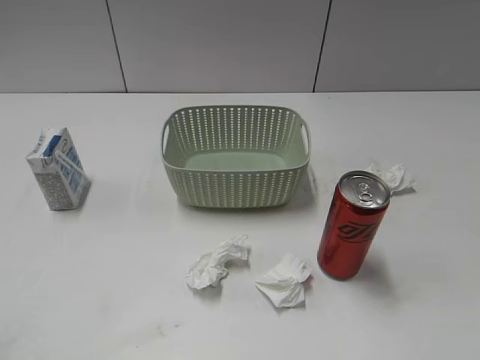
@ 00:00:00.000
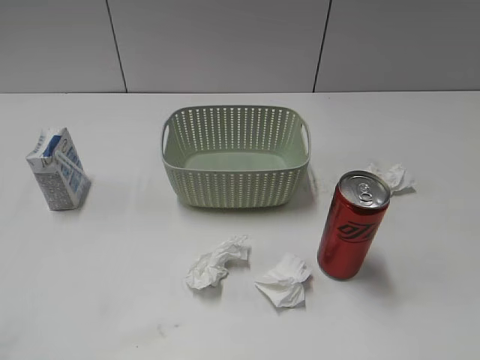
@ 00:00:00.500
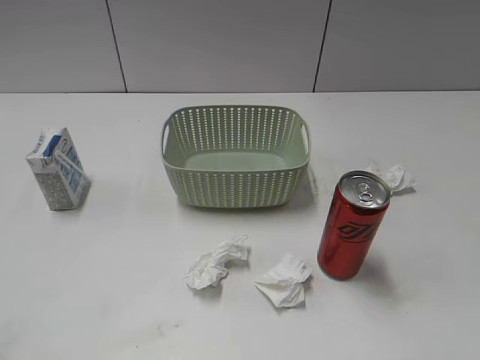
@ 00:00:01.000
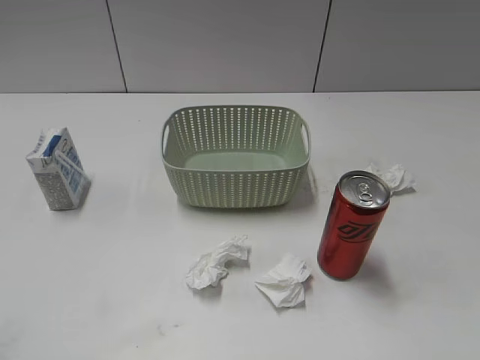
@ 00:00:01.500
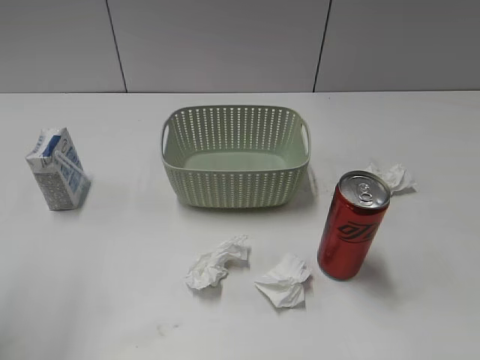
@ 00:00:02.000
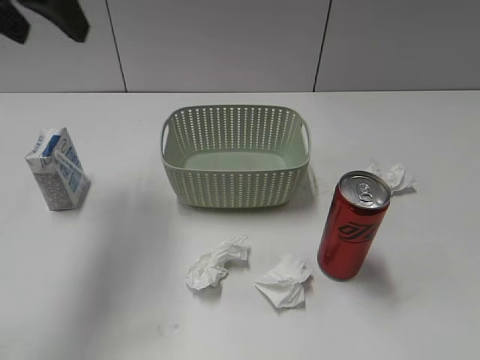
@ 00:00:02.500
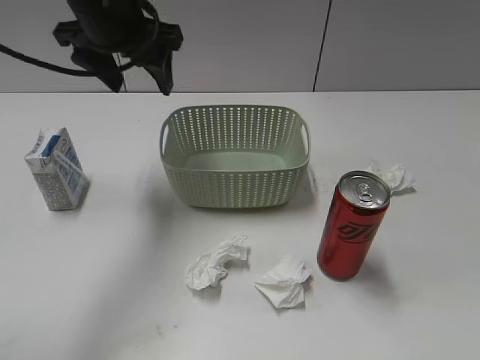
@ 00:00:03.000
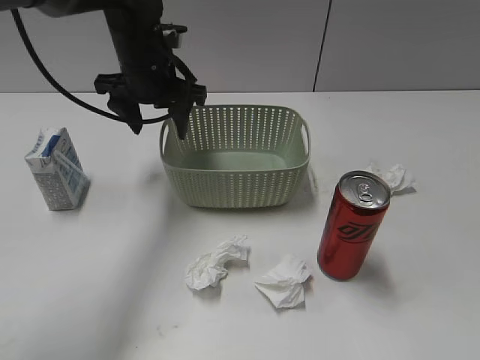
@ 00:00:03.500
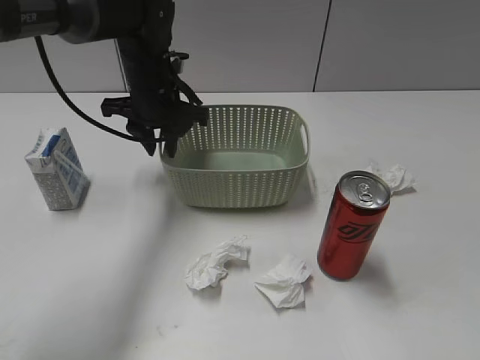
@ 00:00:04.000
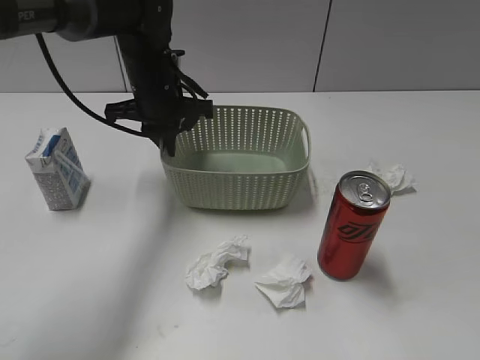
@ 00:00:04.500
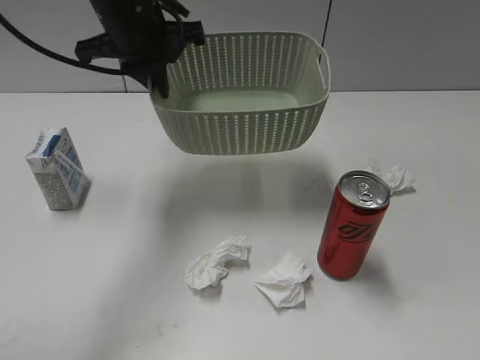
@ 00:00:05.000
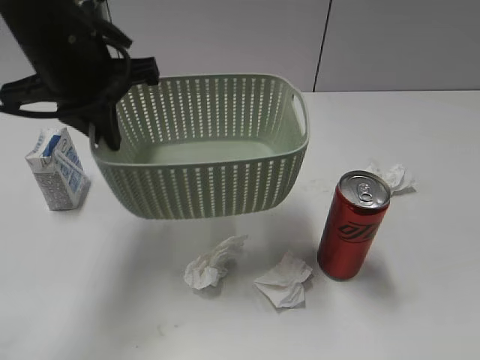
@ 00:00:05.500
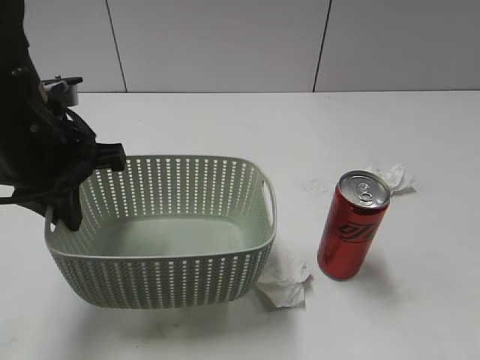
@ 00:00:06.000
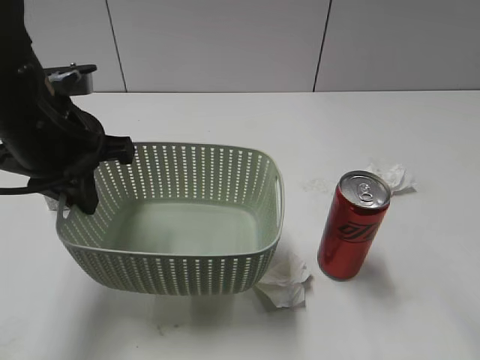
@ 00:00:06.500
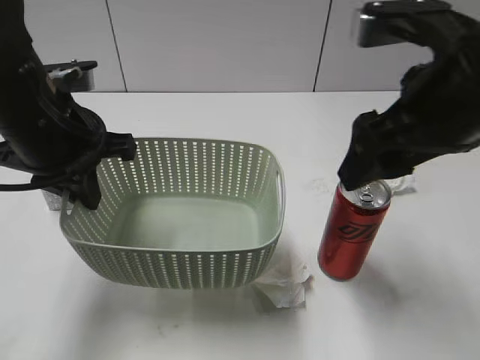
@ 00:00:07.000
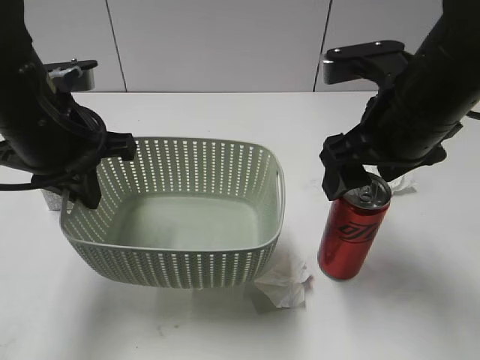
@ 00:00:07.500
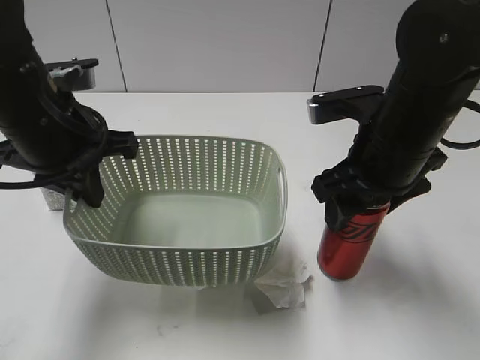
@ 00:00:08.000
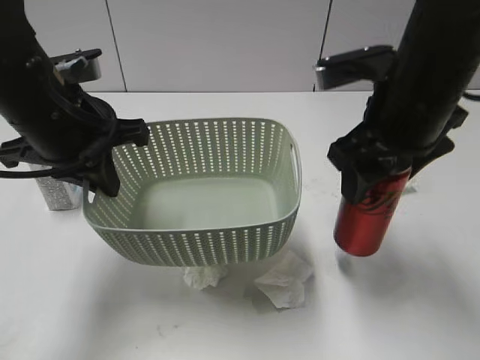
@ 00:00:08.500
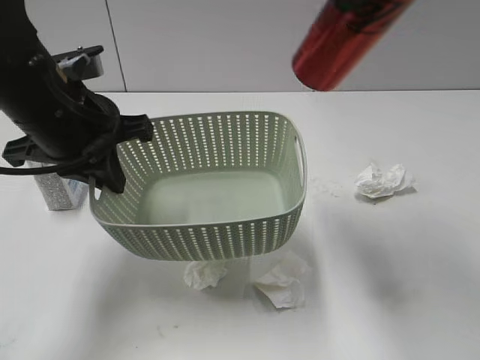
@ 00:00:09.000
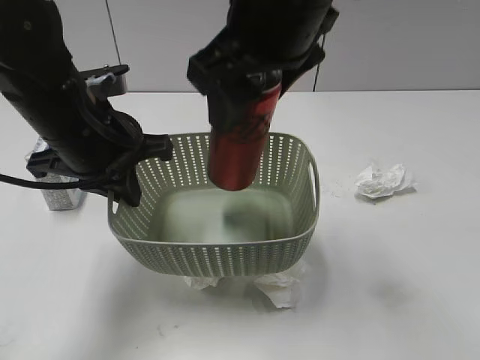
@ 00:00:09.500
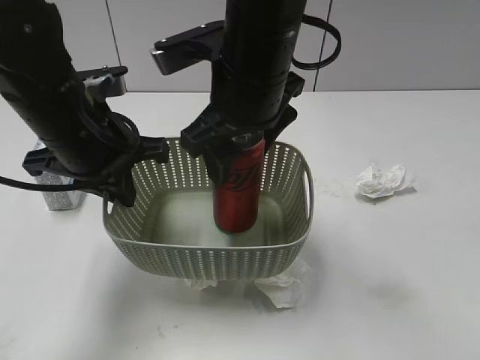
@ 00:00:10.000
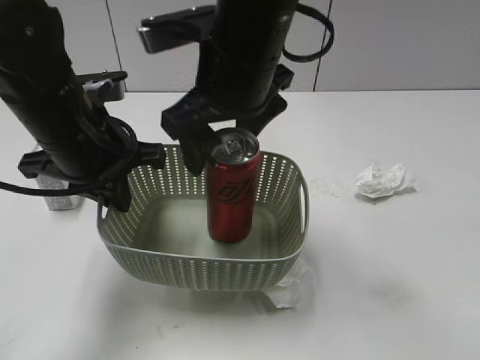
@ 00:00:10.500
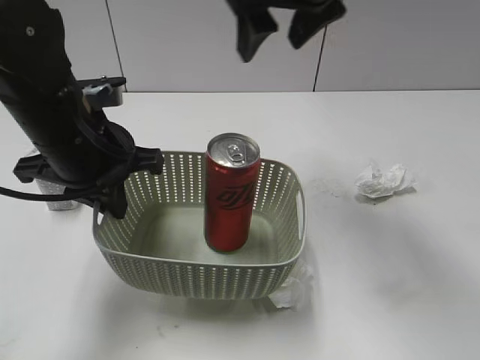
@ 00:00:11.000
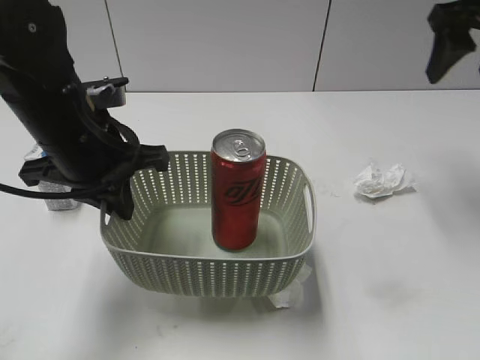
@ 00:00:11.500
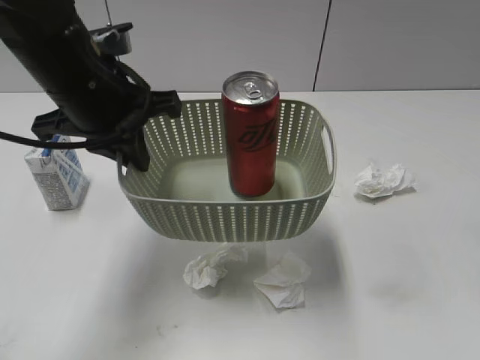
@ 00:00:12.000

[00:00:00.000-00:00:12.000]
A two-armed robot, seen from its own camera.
Step, 00:00:02.500 to 00:00:04.000: Grasp the basket with left gripper.
Step, 00:00:04.500 to 00:00:06.500: Lift the basket with left gripper.
Step, 00:00:07.000 to 00:00:08.000: Grasp the cola can with right gripper.
Step, 00:00:08.500 to 00:00:10.000: Place the cola can in the basket with right gripper.
00:00:02.000 to 00:00:04.000: The left gripper shifts some 40 cm forward, downward and to the right, and closes up.
00:00:04.000 to 00:00:06.000: The left gripper shifts roughly 20 cm backward and to the left.
00:00:06.000 to 00:00:08.000: The right gripper is displaced forward and to the left by some 30 cm, and opens and closes again.
00:00:08.000 to 00:00:10.000: The right gripper heads to the left, covering approximately 15 cm, and travels upward and back again, approximately 20 cm each way.
00:00:10.000 to 00:00:12.000: The right gripper shifts about 30 cm to the right, and opens.

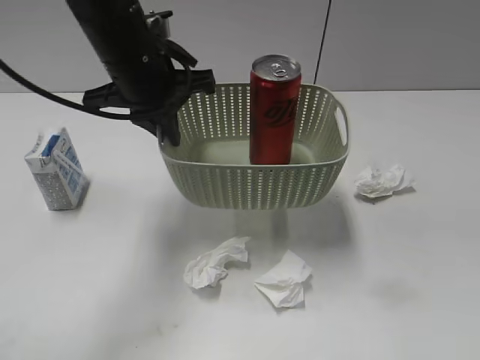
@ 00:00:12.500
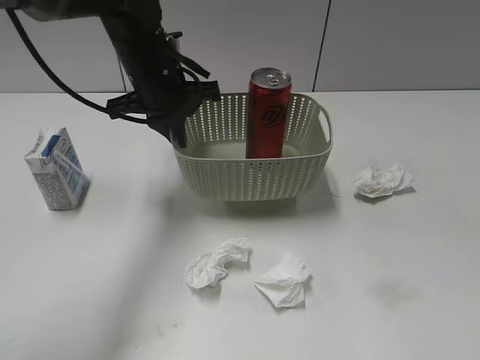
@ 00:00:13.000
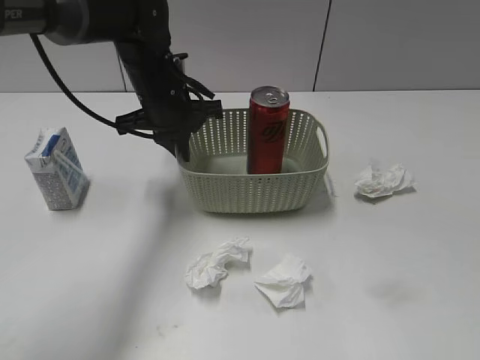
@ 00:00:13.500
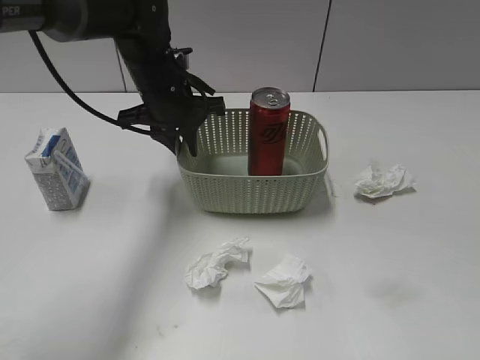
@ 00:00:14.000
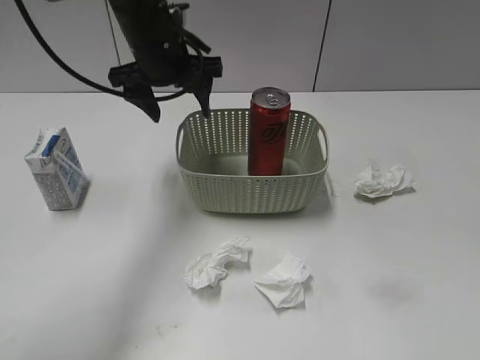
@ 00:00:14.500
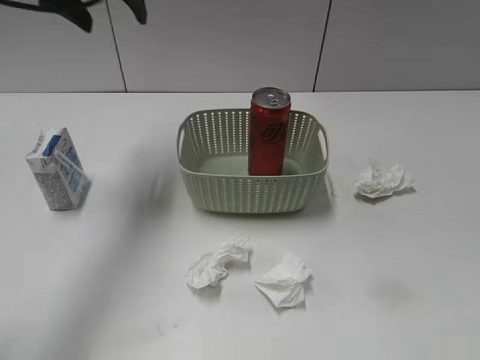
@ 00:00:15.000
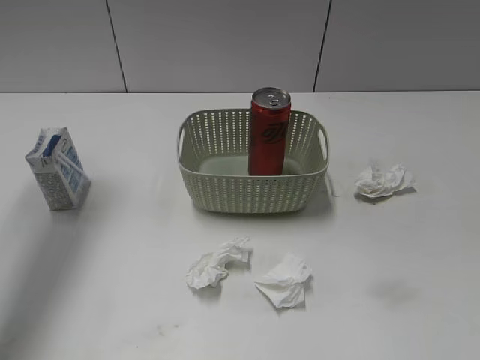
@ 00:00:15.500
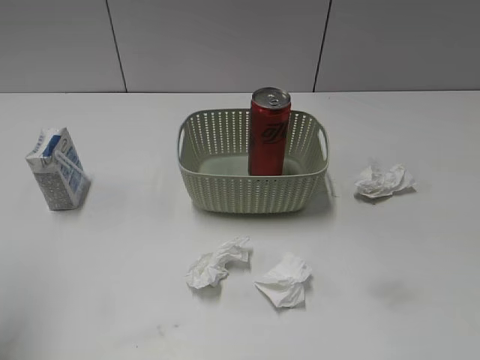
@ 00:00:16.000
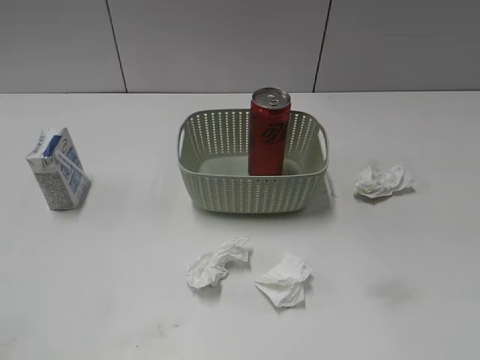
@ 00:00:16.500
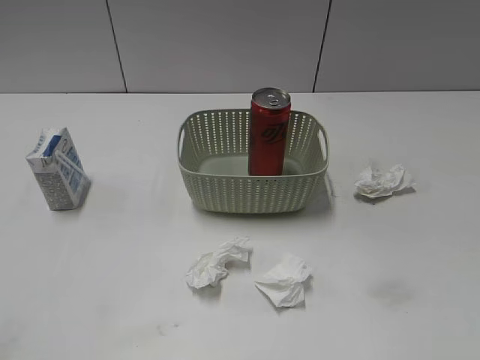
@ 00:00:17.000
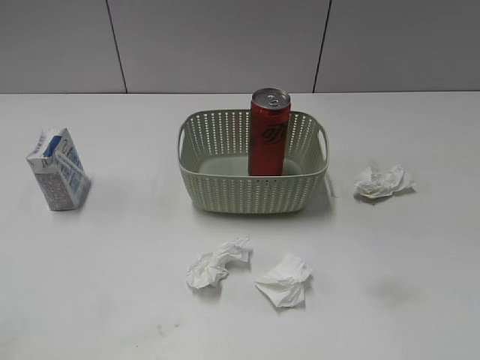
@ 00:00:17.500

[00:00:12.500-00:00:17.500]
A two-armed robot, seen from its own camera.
00:00:12.500 to 00:00:15.000: The right gripper heads backward, covering roughly 5 cm, and closes its fingers; the left gripper is displaced upward, to the left and forward by about 15 cm, and opens its fingers.
00:00:15.000 to 00:00:17.500: The left gripper is displaced backward by approximately 40 cm.

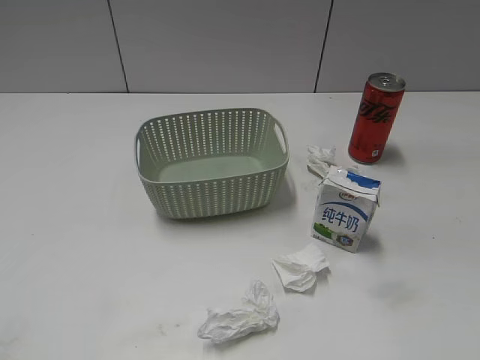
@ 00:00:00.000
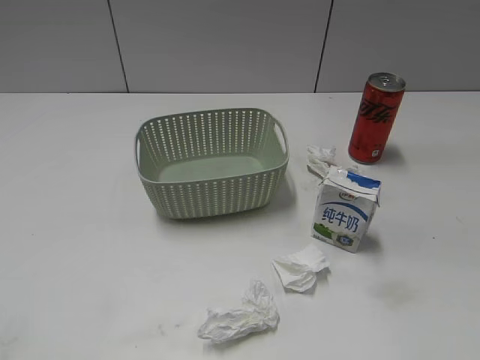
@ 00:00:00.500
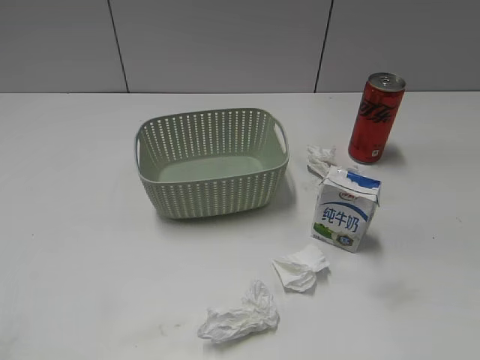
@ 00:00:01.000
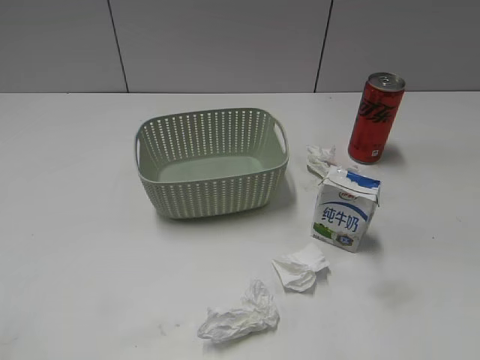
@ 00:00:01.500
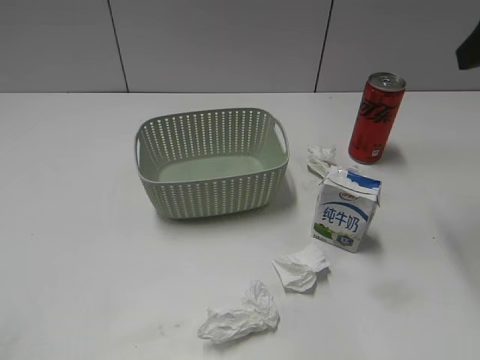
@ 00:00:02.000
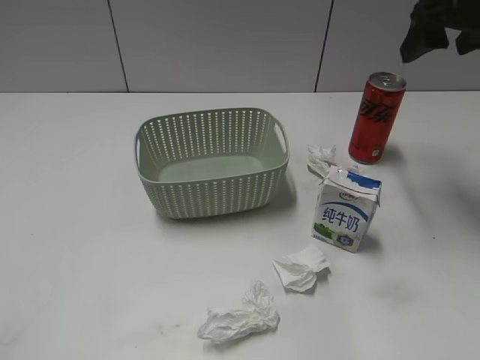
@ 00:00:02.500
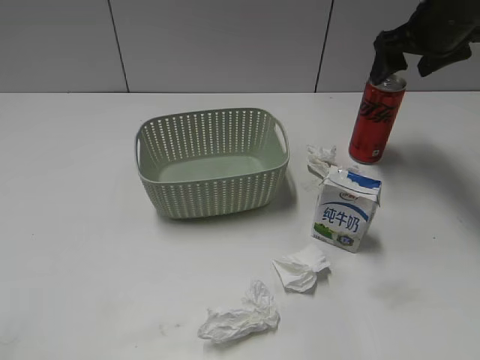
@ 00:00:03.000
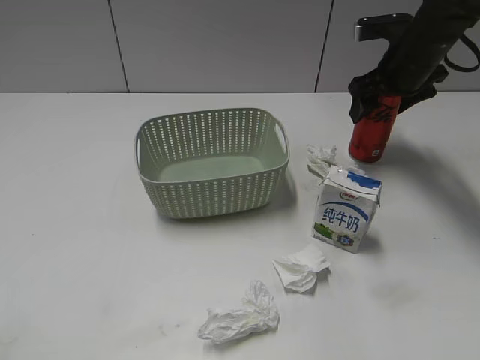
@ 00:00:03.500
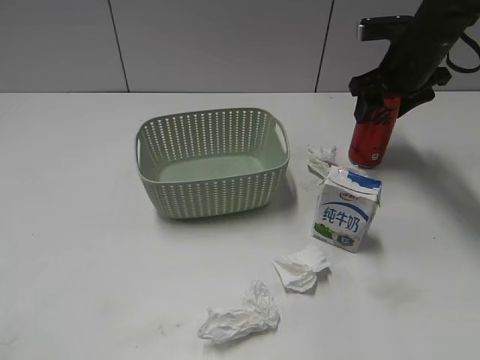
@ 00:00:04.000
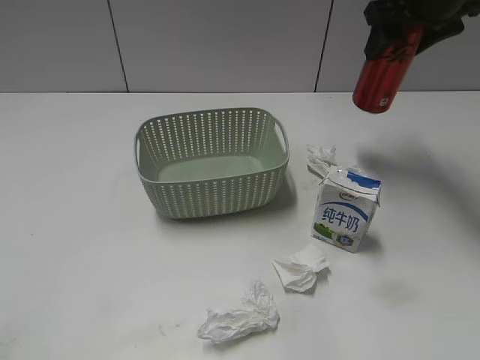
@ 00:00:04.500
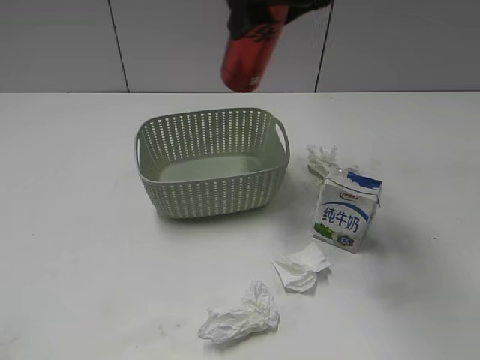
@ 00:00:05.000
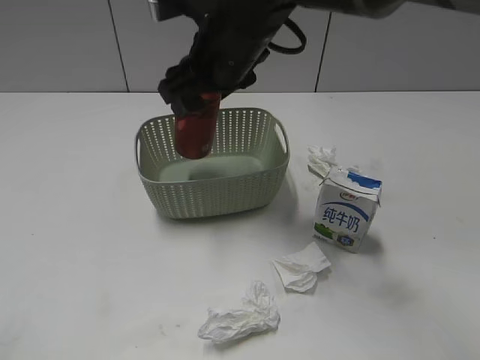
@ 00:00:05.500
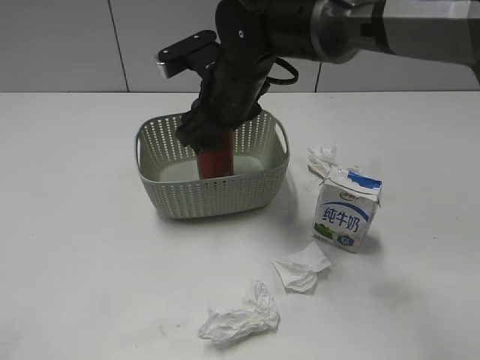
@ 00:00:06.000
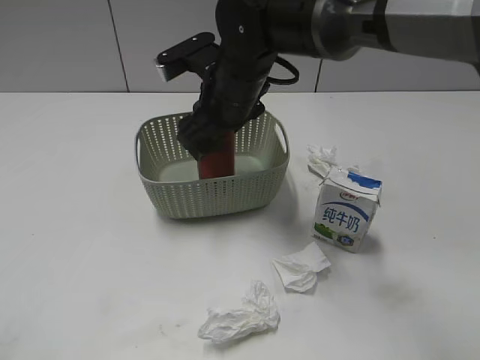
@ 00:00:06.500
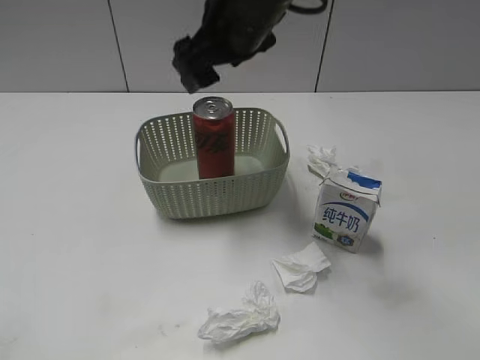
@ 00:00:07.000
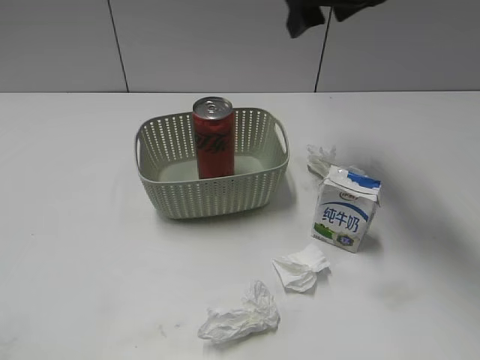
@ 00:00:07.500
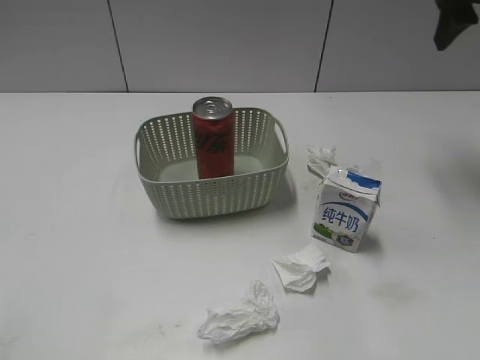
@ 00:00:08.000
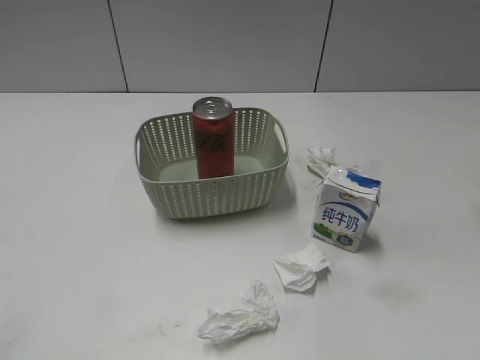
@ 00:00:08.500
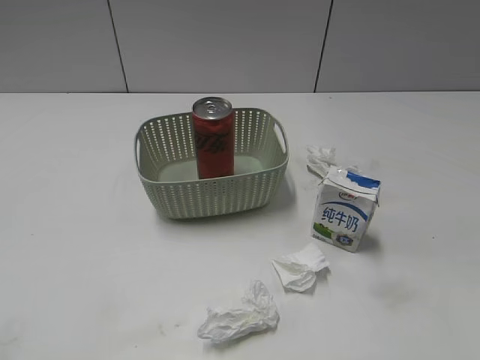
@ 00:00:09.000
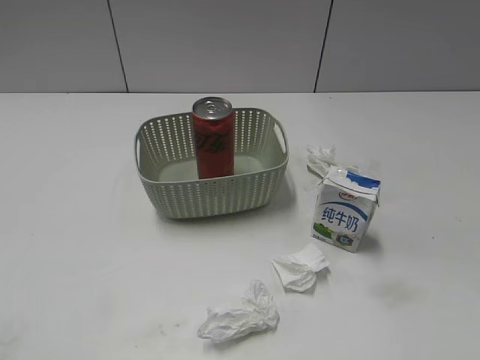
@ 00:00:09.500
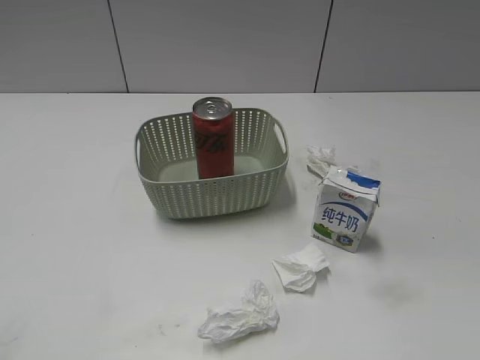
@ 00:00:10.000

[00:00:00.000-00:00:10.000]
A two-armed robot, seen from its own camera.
Step, 00:00:02.000 to 00:00:03.500: Grasp the cola can with right gripper.
Step, 00:00:04.000 to 00:00:07.000: Place the cola can in the basket with right gripper.
00:00:02.000 to 00:00:04.000: The right gripper moves forward and downward, roughly 25 cm, and closes up.
00:00:04.000 to 00:00:06.000: The right gripper goes roughly 25 cm to the left.
00:00:06.000 to 00:00:08.000: The right gripper moves to the right and upward, approximately 30 cm, and opens up.
00:00:08.000 to 00:00:10.000: The right gripper moves backward, about 40 cm, and closes its fingers.
